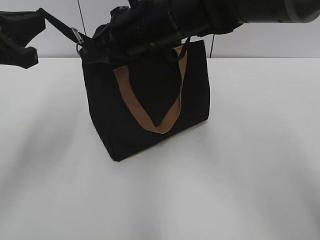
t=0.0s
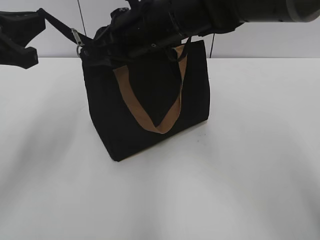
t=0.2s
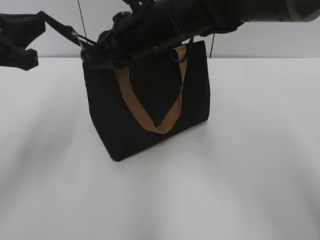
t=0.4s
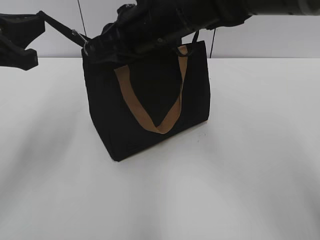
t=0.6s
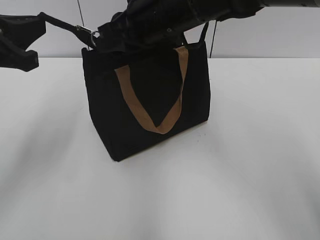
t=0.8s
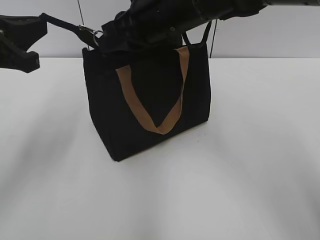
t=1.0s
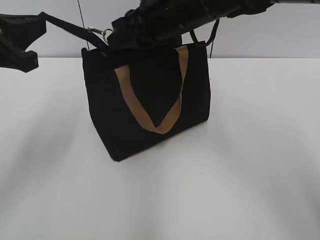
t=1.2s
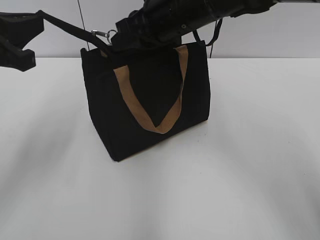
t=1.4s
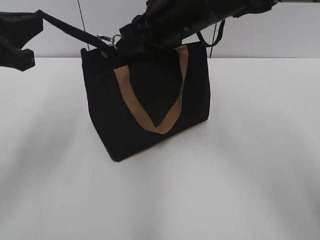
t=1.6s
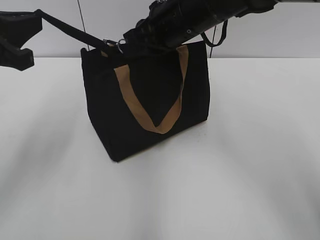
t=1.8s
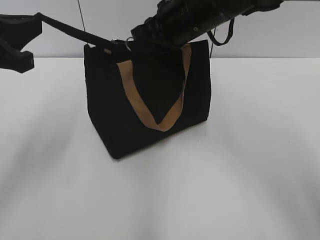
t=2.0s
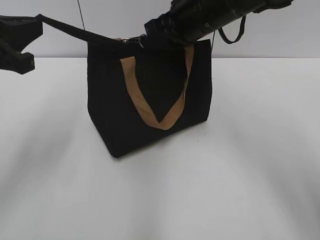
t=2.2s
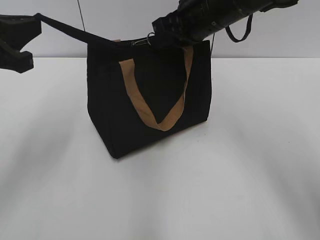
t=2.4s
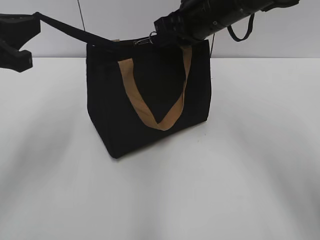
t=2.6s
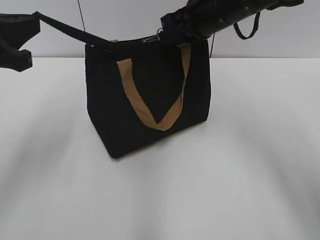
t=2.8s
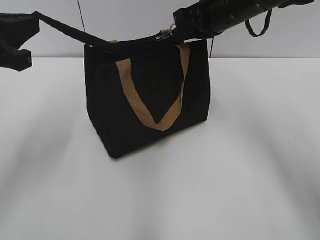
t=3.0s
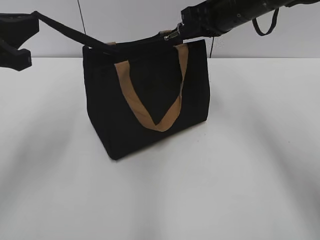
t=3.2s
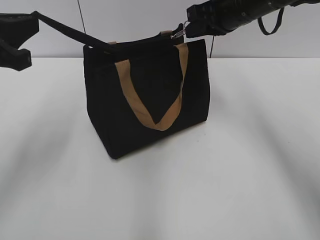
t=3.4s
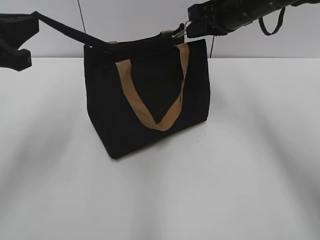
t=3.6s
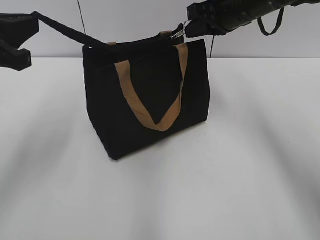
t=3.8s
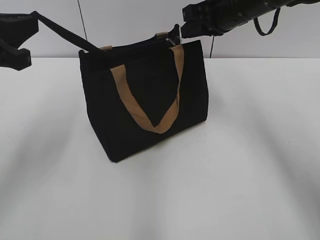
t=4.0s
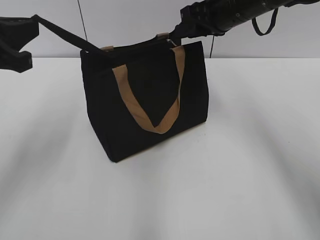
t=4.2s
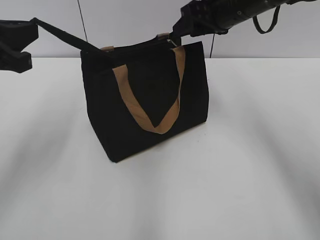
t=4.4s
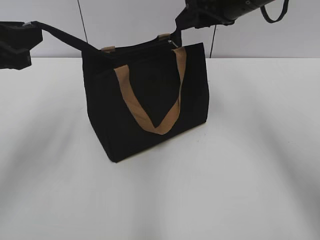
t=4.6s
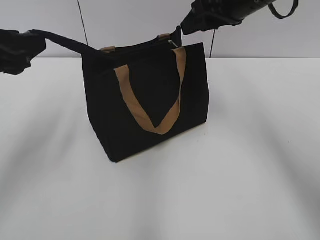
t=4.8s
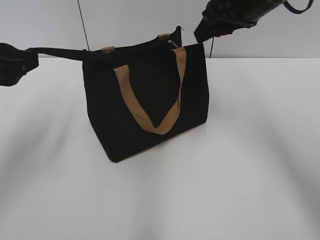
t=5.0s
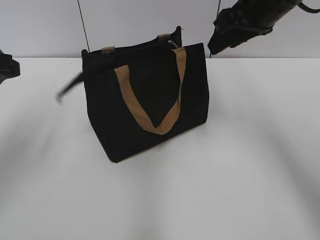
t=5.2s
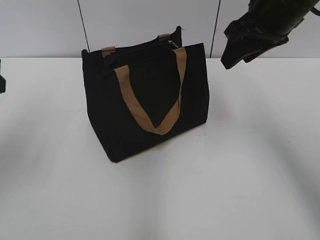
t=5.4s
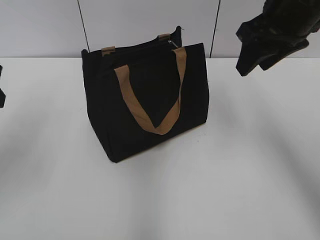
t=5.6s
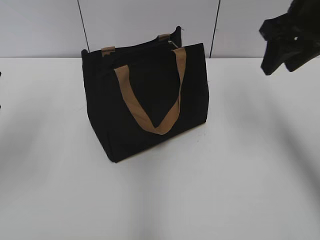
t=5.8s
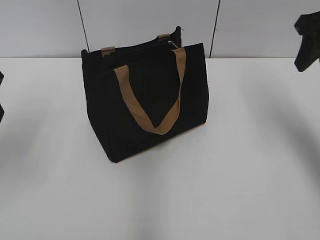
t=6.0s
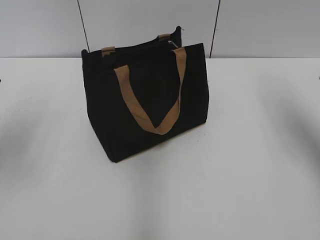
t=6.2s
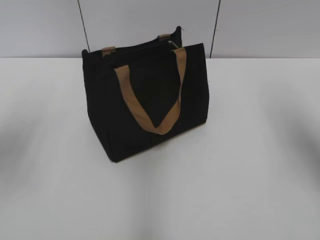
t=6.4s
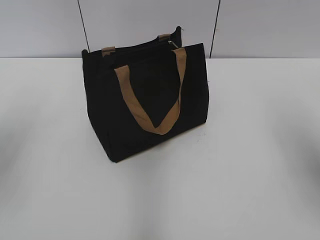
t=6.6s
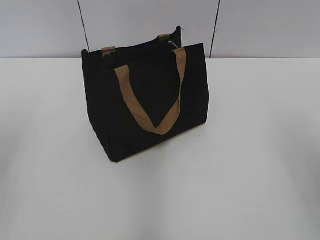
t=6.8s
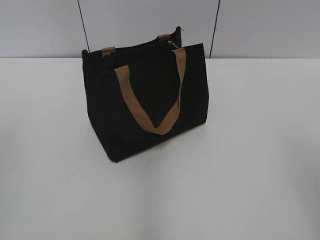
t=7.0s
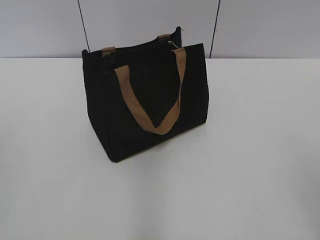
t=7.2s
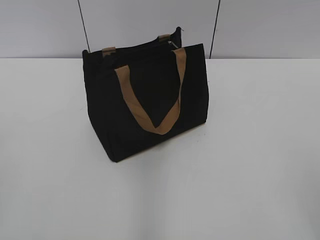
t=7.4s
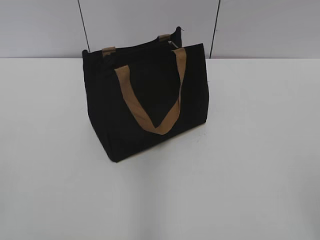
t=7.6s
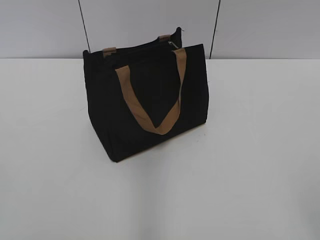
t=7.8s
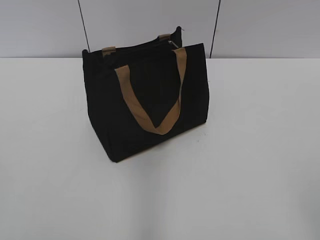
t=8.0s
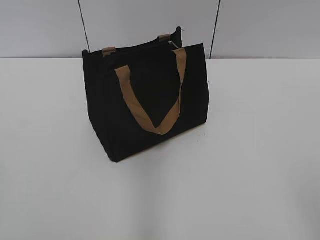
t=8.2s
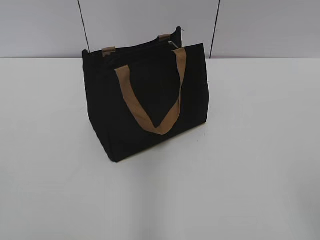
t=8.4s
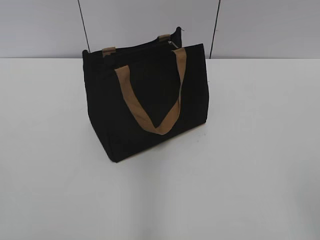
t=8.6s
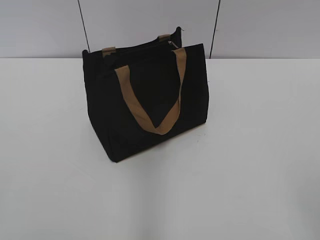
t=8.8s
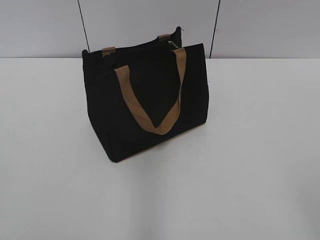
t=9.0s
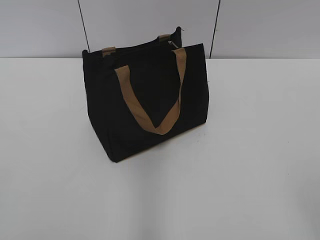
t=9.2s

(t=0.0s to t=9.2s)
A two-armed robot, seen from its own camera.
Step, t=0.0s - t=3.8s: Zip up the bag with your right hand.
Step, t=4.2s - t=5.2s: Grab the zipper with your left hand.
t=0.0s - t=1.6s: The right gripper changes place by about 5 cm.
t=1.6s - t=3.0s: The right gripper shifts approximately 10 cm to the right.
t=3.0s - t=4.6s: The left gripper opens. The right gripper opens up.
t=4.6s - t=6.2s: The right gripper shifts roughly 15 cm to the right and backward, while the left gripper opens.
t=6.2s - t=7.6s: Both grippers move backward, roughly 30 cm.

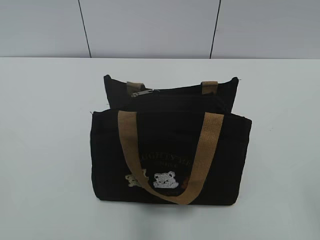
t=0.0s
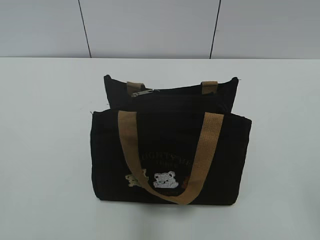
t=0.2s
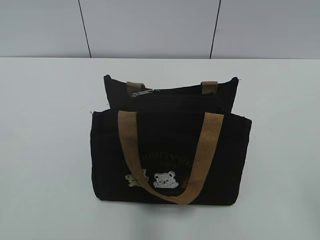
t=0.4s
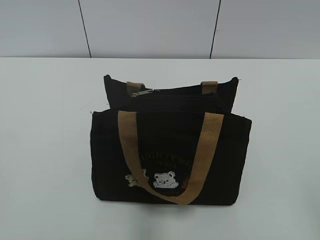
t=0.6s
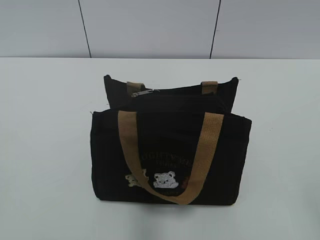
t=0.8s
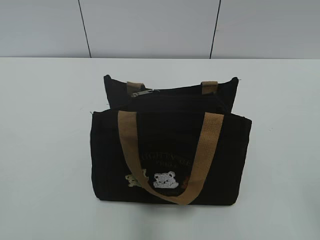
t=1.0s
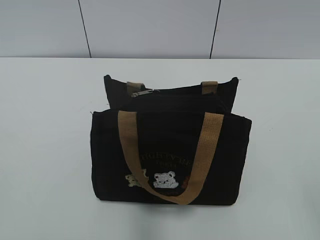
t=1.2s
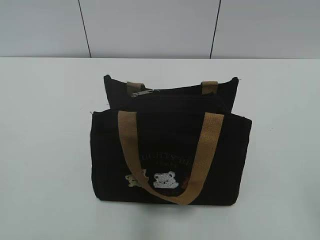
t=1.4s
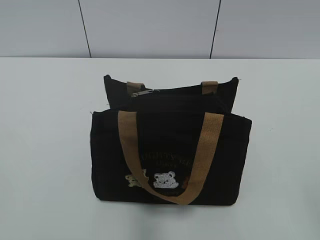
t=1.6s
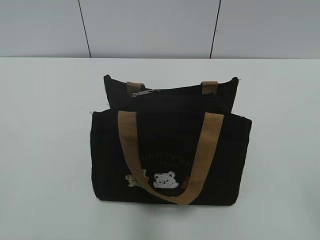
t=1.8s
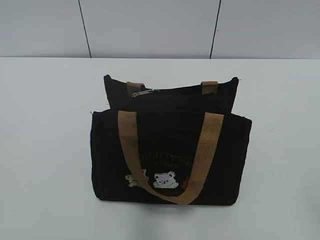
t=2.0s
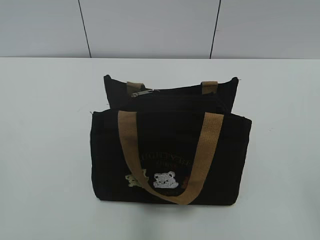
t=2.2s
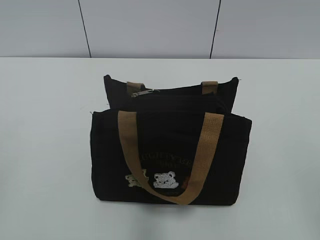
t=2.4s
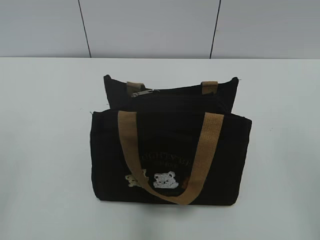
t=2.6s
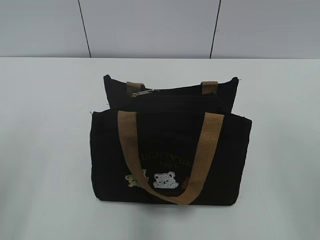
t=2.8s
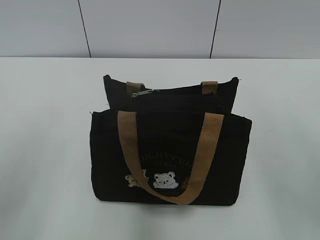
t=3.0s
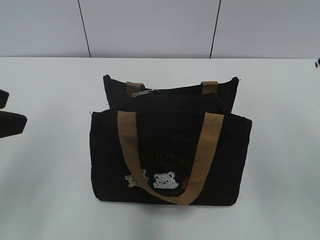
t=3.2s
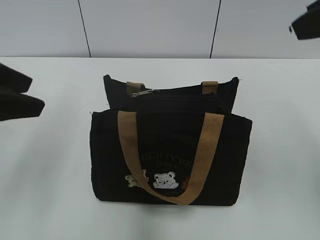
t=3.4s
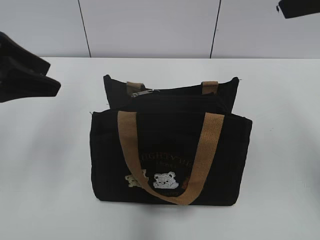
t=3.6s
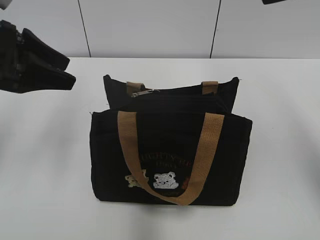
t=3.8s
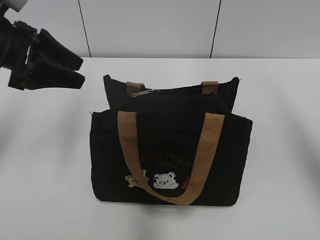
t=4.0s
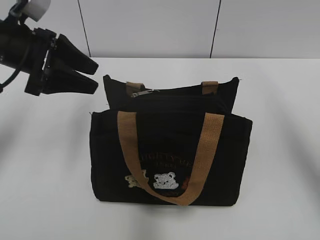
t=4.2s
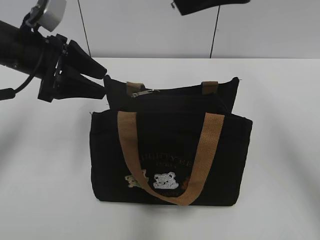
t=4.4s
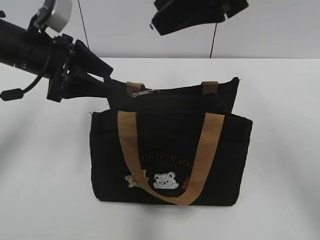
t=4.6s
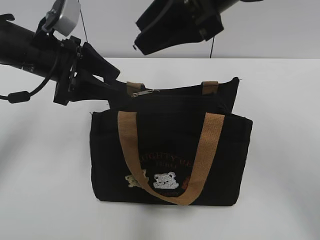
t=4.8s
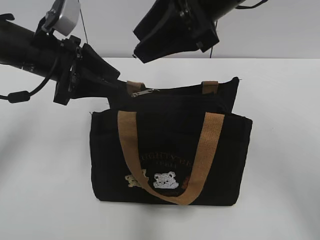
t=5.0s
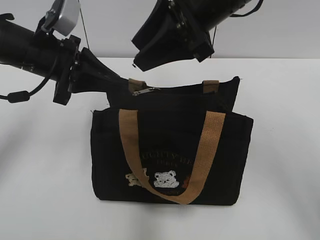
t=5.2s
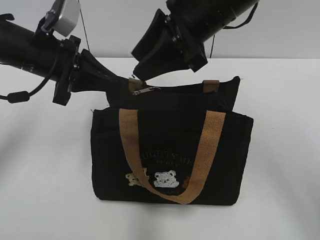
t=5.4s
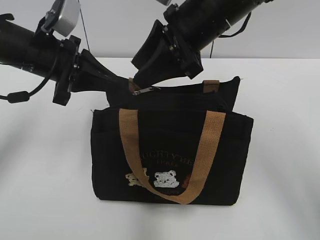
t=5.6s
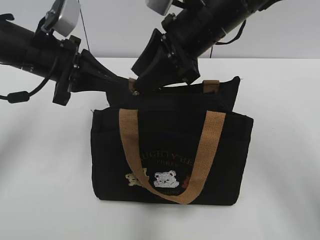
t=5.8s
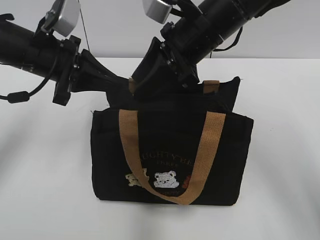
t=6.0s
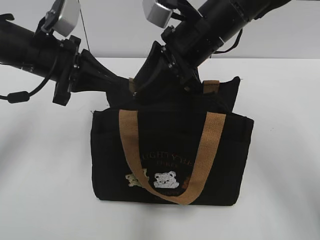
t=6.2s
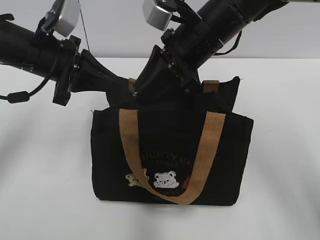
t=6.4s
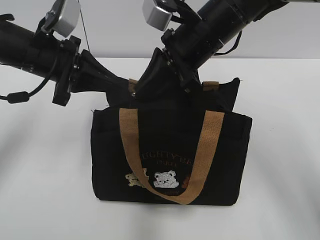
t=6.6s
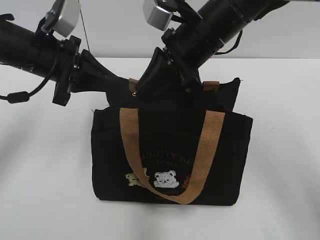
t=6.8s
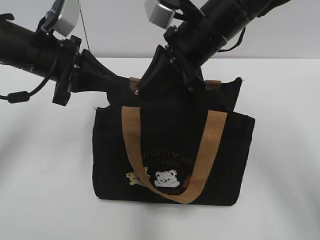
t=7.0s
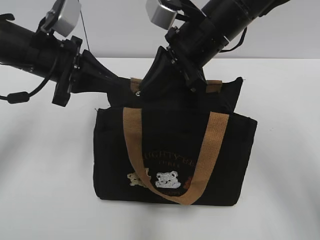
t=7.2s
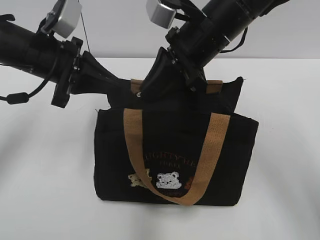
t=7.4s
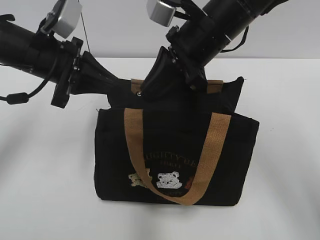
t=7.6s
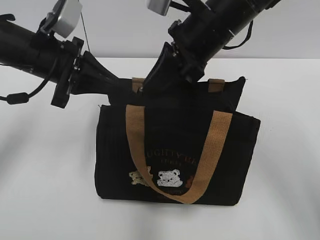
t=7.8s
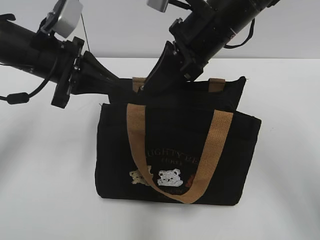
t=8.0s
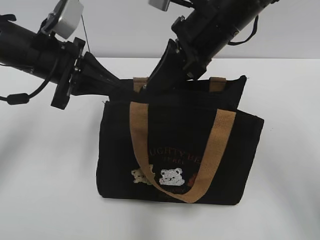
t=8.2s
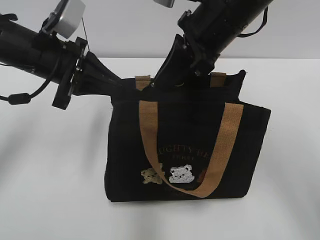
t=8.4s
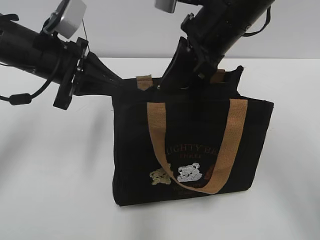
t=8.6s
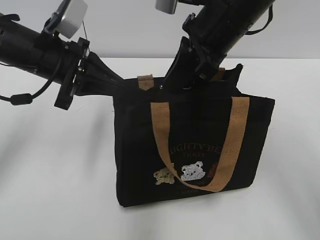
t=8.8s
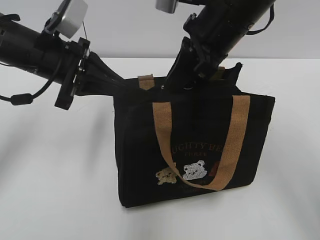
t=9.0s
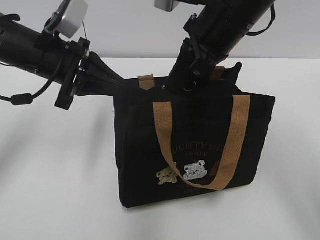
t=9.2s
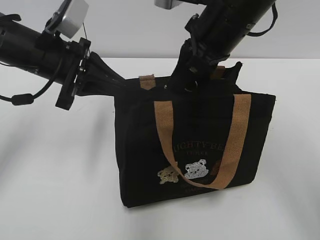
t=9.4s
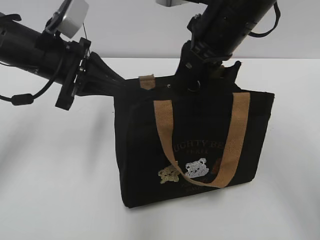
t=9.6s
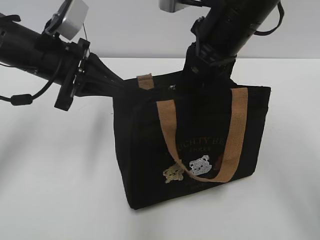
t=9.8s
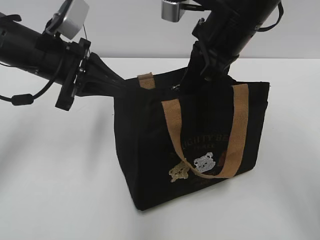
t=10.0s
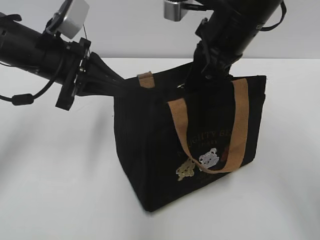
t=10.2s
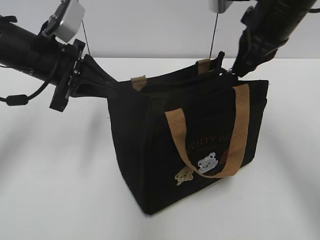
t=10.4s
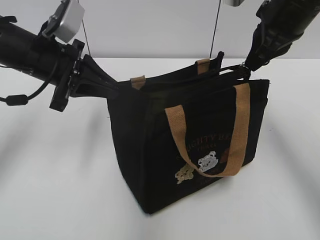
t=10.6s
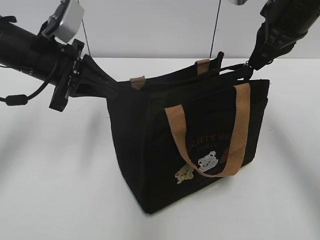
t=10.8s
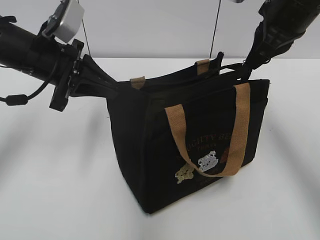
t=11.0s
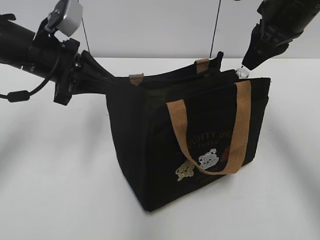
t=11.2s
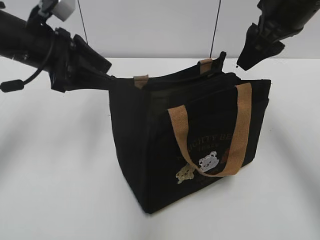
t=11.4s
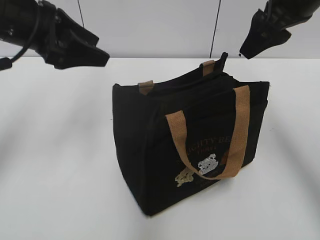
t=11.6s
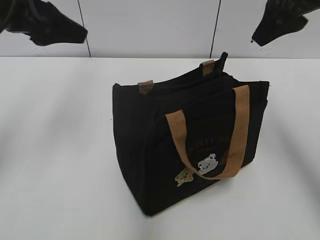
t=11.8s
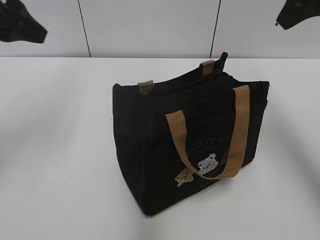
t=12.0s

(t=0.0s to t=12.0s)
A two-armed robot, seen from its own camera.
Step, t=0.0s - t=11.0s: Pull open the zipper with your right hand.
t=1.6s - t=3.0s: The left gripper shifts some 10 cm forward, and opens its fingers.
t=3.0s - t=4.4s: The right gripper is displaced forward and to the left by approximately 20 cm. The left gripper goes about 25 cm forward.
t=4.4s - t=6.0s: The left gripper closes up, while the right gripper travels downward and to the left by approximately 15 cm.
t=6.0s - t=7.6s: The right gripper closes up.
t=9.0s - t=10.4s: The right gripper moves to the right, approximately 5 cm.
t=10.4s - t=12.0s: The right gripper is displaced upward and to the right by approximately 10 cm, and opens, while the left gripper shifts roughly 10 cm upward and to the left, and opens up.

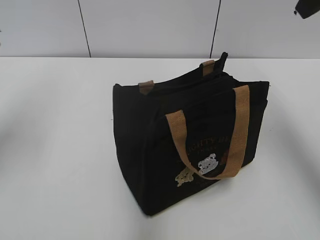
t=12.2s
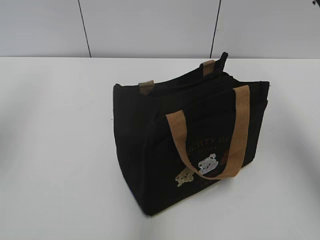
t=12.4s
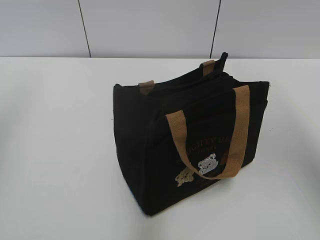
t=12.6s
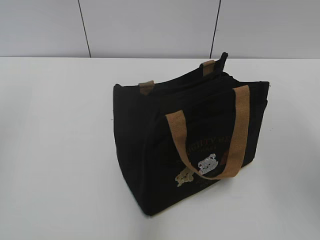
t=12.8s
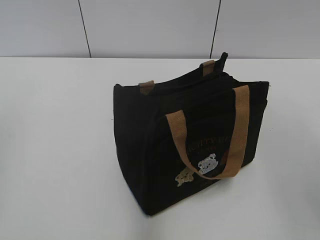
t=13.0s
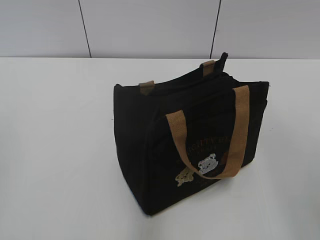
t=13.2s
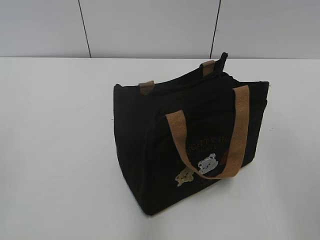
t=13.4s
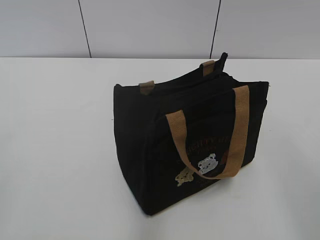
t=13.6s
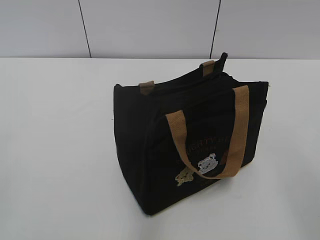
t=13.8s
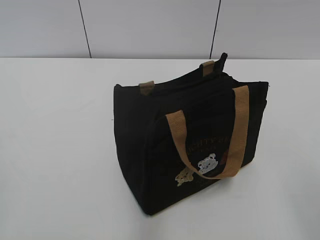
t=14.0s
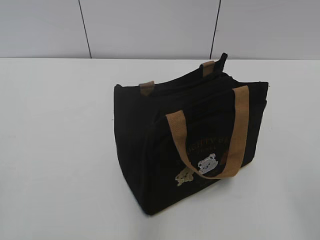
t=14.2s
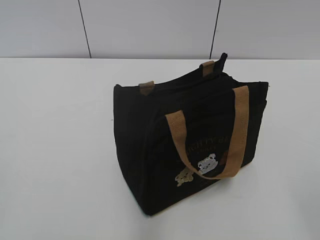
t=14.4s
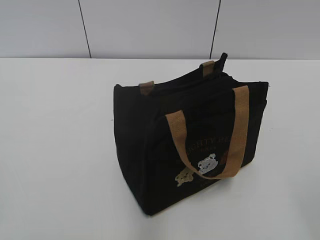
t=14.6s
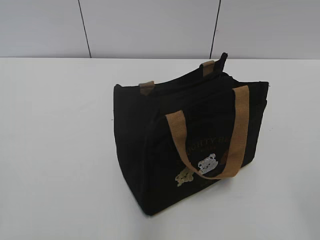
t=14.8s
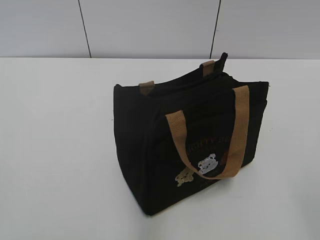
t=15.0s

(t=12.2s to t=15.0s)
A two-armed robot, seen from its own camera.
t=12.2s - t=13.6s: The grippers both shift backward by roughly 25 cm.
